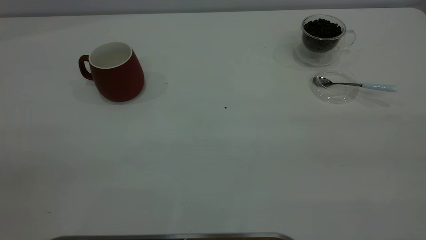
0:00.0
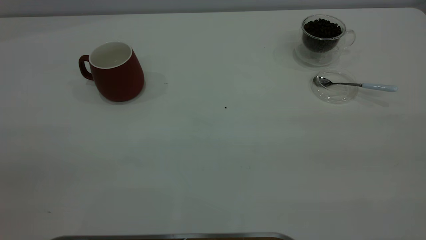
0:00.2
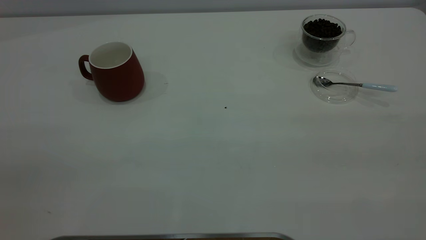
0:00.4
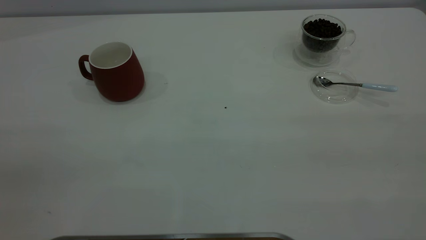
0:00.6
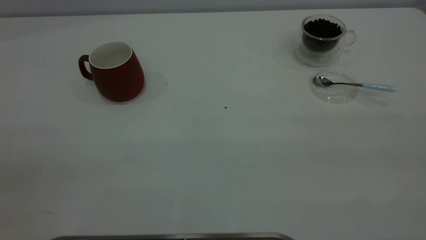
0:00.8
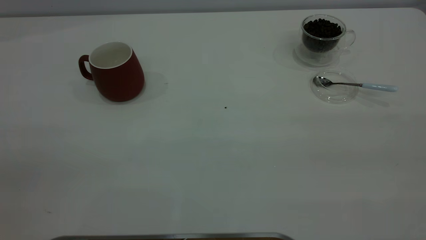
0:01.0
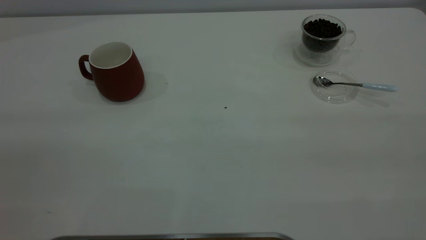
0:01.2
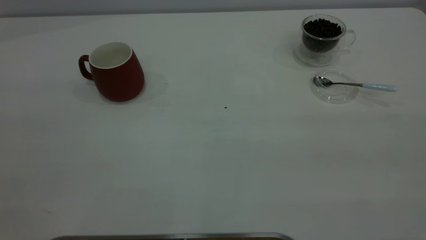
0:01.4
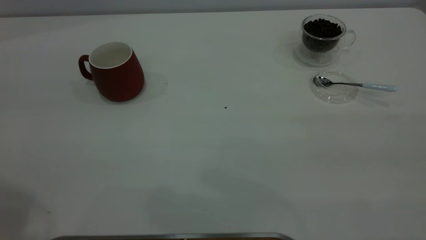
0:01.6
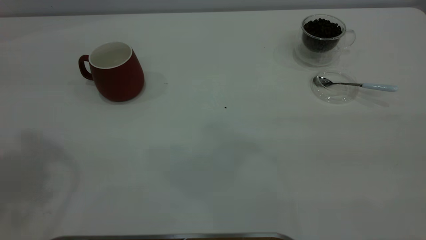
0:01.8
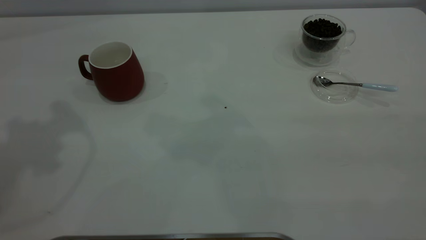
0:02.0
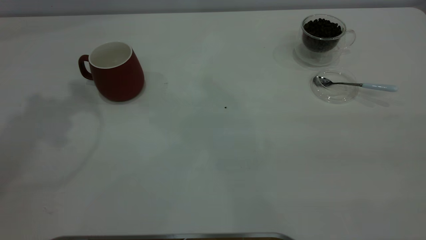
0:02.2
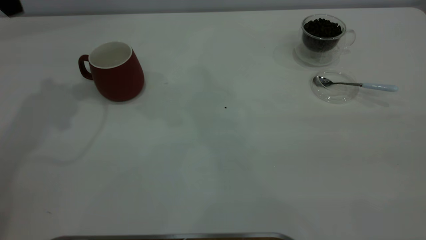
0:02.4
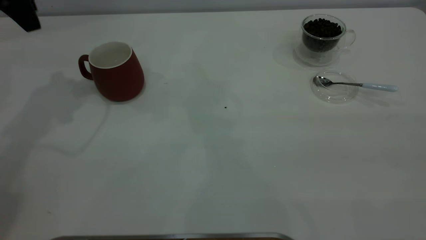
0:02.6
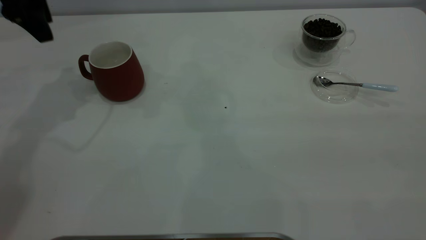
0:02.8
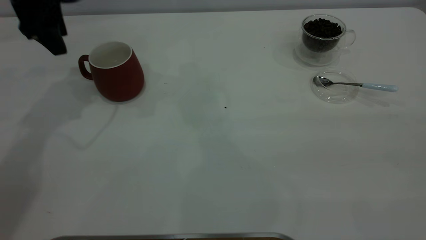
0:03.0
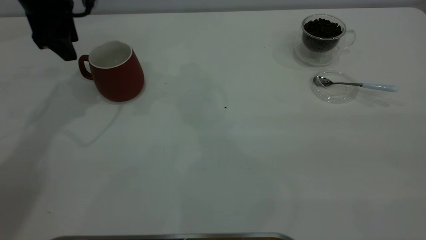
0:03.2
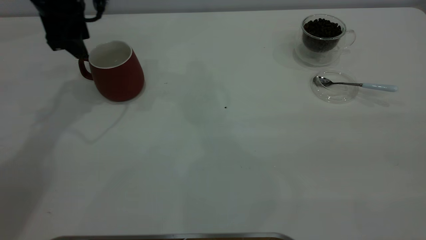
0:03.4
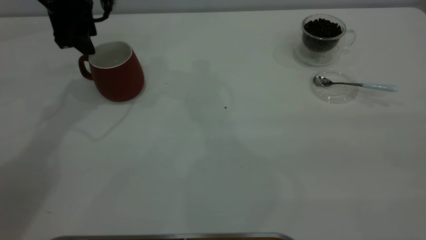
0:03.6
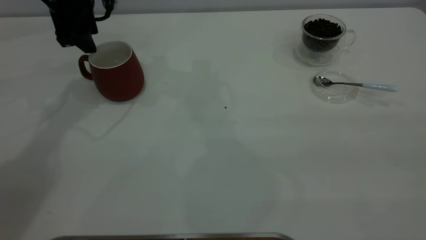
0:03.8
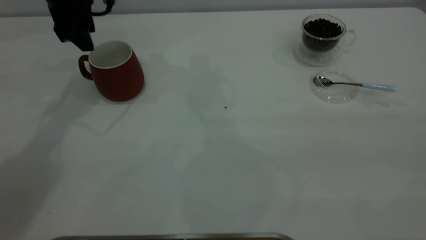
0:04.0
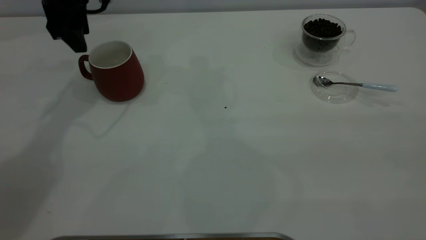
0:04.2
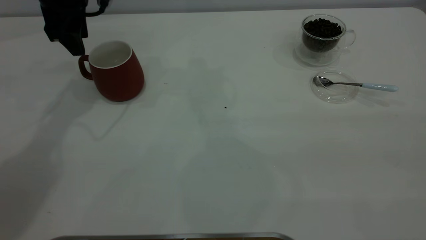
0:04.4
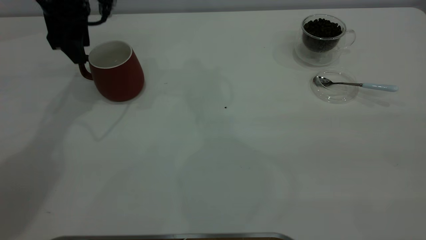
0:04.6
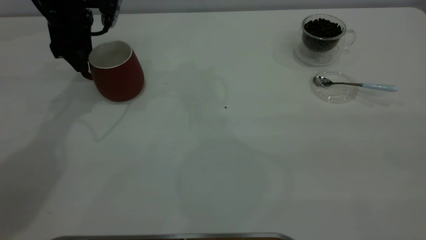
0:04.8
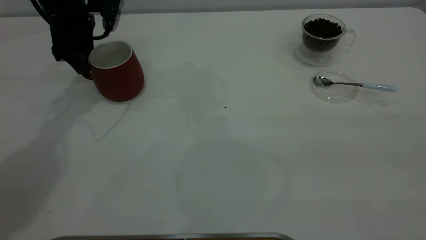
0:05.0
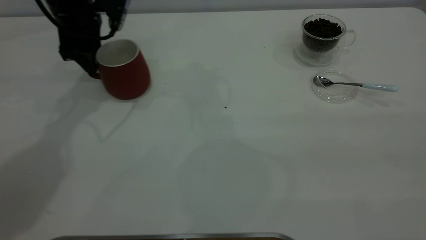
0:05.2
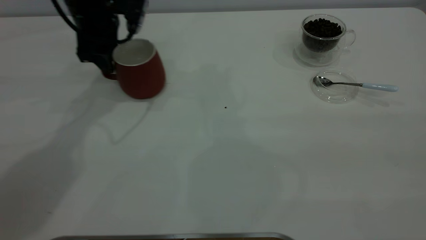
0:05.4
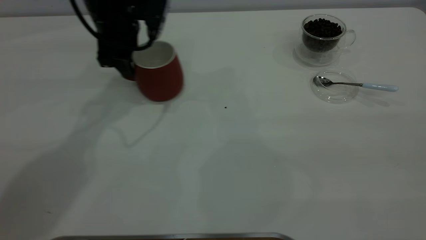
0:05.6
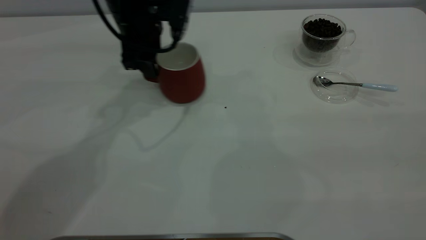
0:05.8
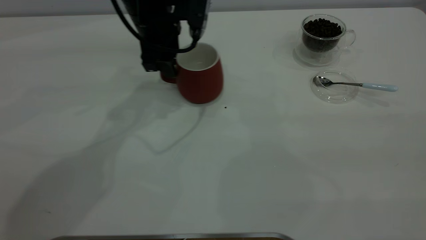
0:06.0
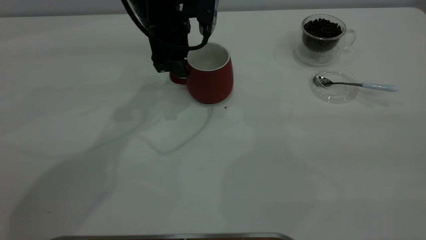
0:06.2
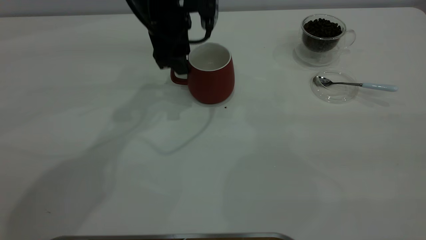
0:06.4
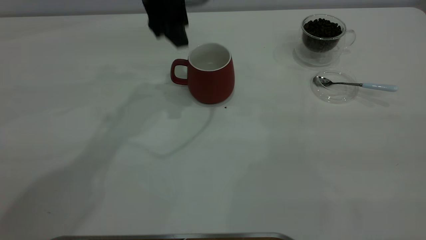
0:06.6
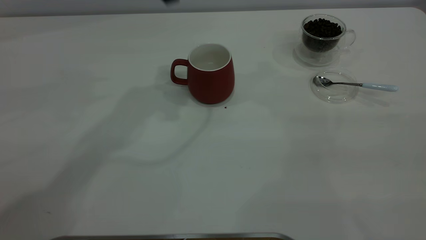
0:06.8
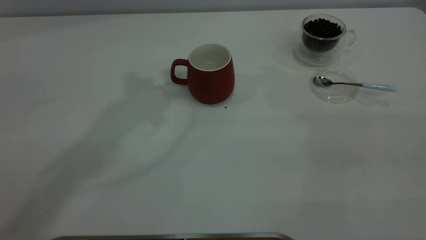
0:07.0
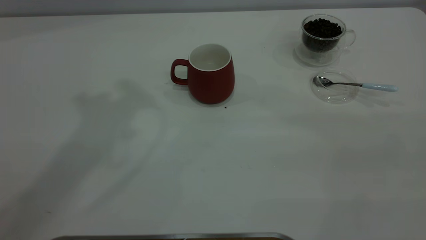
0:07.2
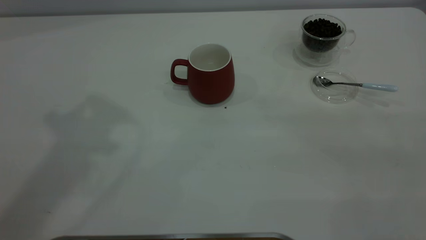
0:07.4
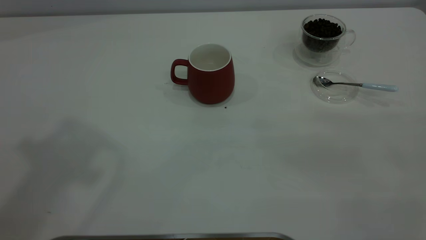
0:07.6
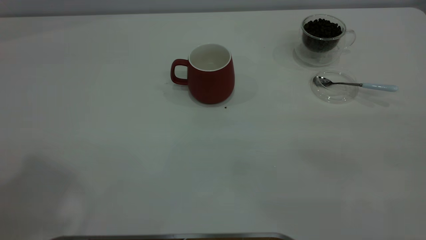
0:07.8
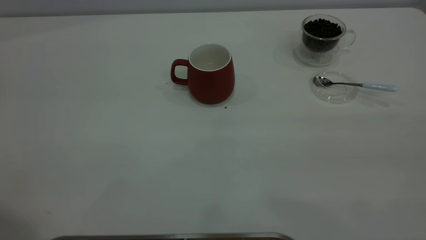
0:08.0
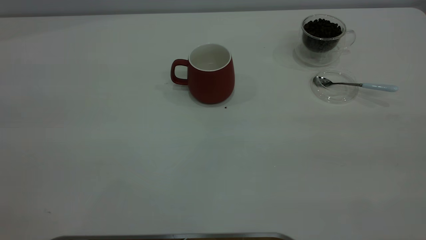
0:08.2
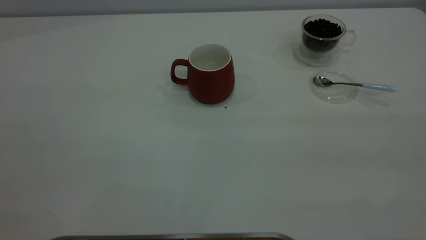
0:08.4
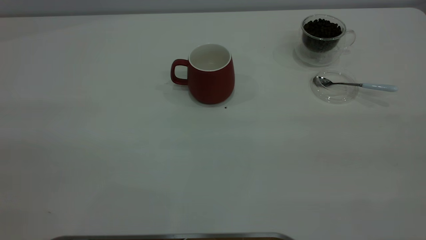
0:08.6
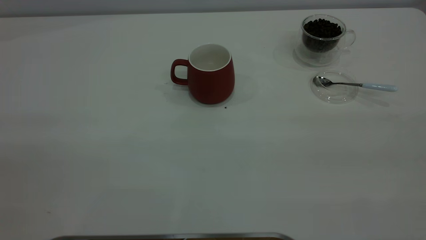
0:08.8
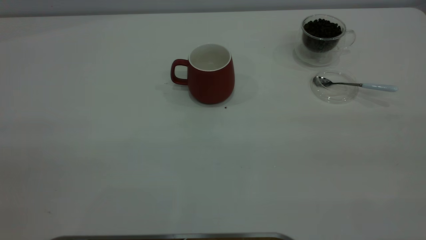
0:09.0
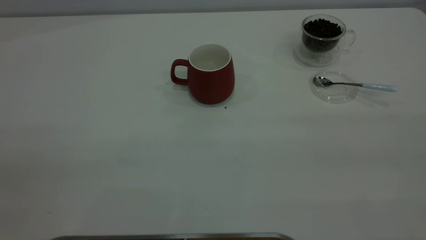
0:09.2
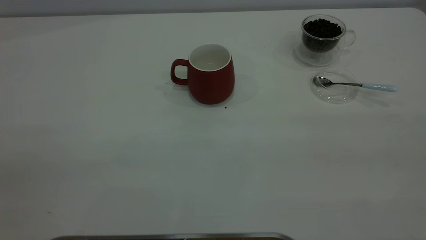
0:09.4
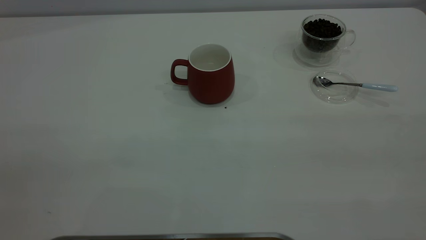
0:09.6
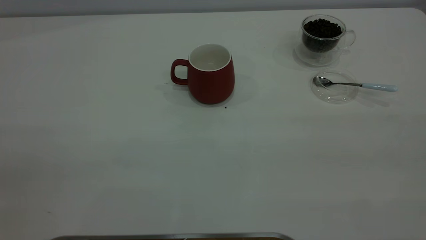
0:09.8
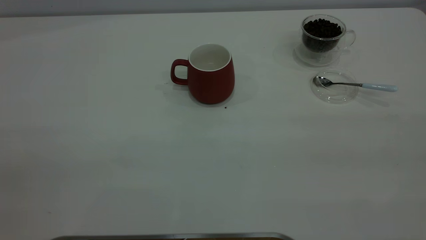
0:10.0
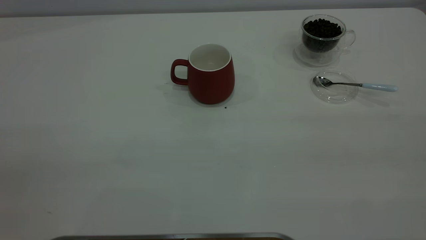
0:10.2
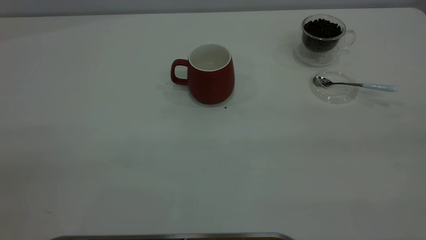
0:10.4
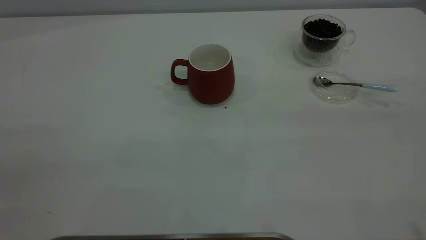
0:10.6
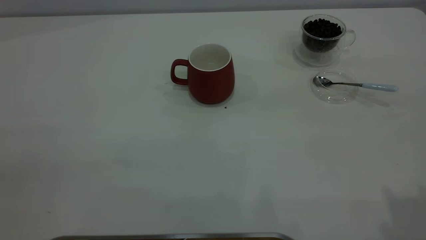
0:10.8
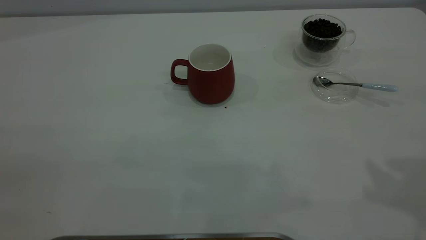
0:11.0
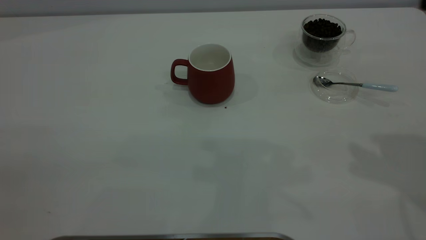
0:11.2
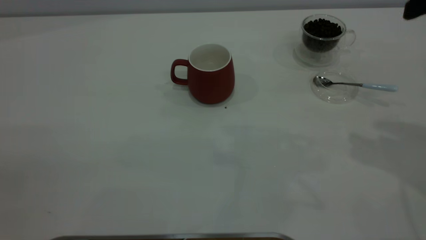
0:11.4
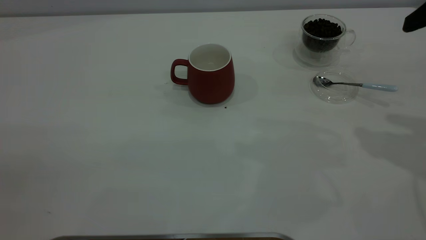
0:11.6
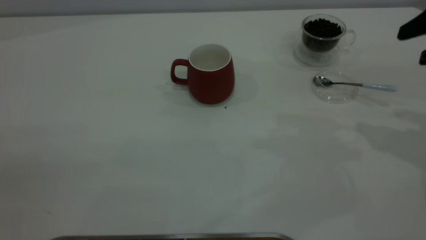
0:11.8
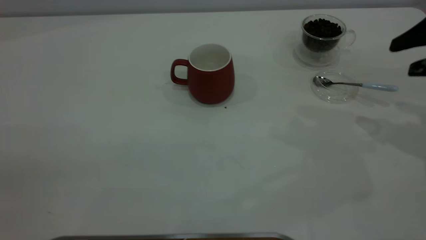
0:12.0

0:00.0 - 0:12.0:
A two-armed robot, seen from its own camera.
Task of the whole recording: the left gripper place the red cup in the center of the table, the right gripper take the blue spoon from the cup lid and scoop out the coffee beans from the coffee cup and put them into the red cup, the right gripper put the spoon back into the cup lid.
Step, 0:00.0 - 0:06.4: Move the cup to the center of view.
0:01.6 - 0:03.0: The left gripper travels forward and downward by about 35 cm.
0:03.0 - 0:04.4: The grippers move only a little.
0:04.4 - 0:06.0: The left gripper is displaced to the right by some 15 cm.
0:06.0 - 0:07.6: The left gripper is displaced upward and backward by some 40 cm.
0:10.4 - 0:12.0: The right gripper is displaced forward and downward by roughly 35 cm.

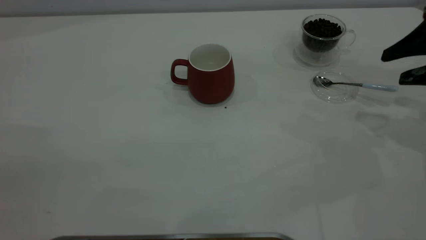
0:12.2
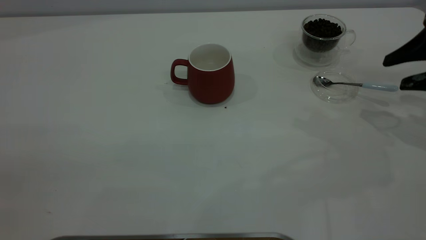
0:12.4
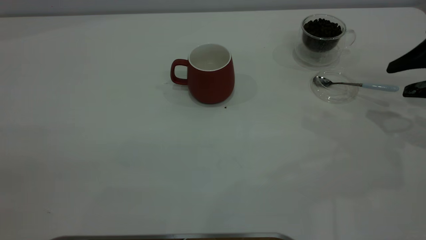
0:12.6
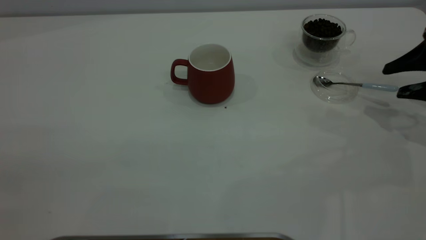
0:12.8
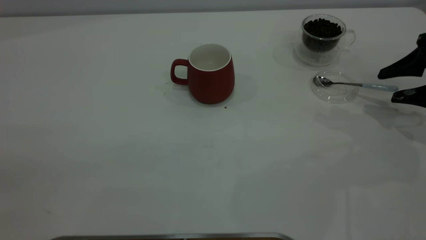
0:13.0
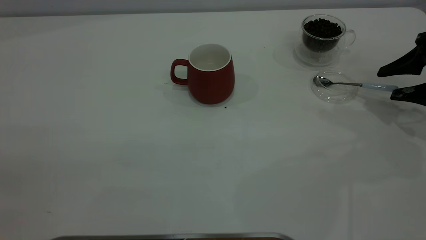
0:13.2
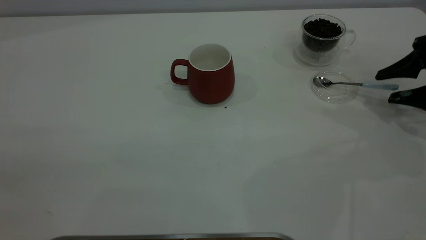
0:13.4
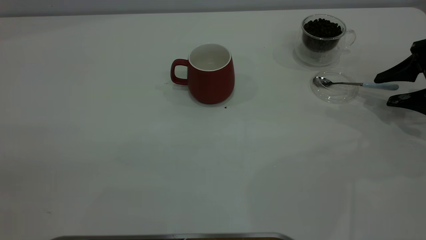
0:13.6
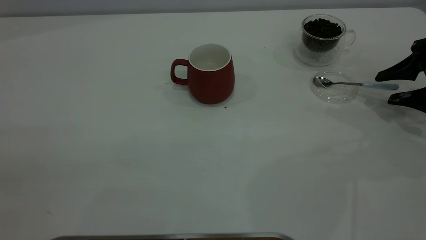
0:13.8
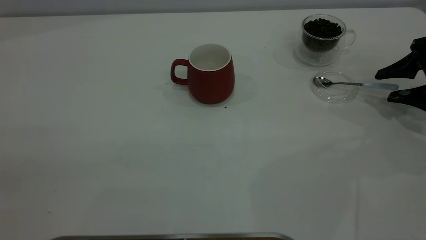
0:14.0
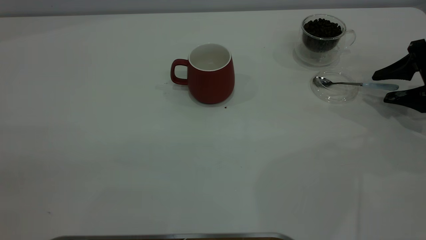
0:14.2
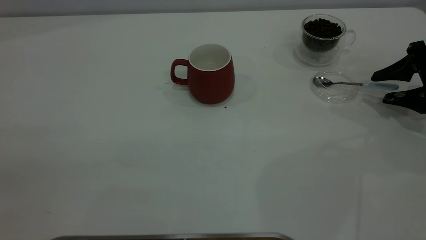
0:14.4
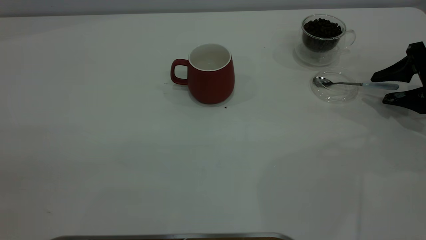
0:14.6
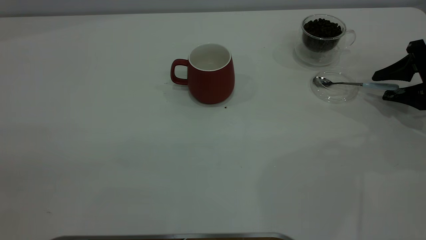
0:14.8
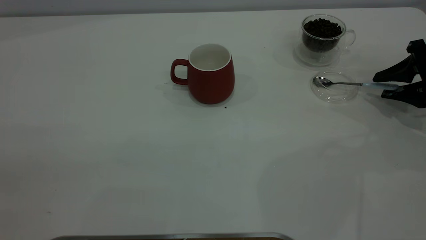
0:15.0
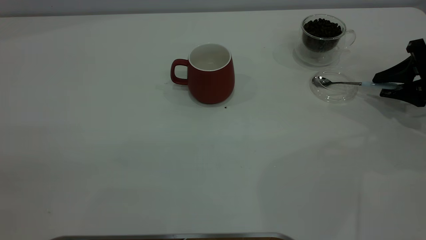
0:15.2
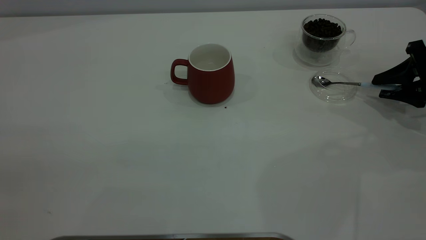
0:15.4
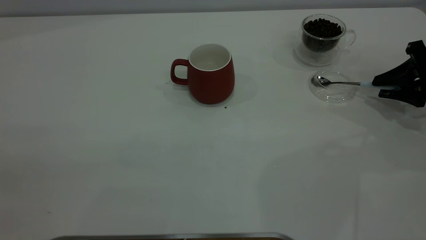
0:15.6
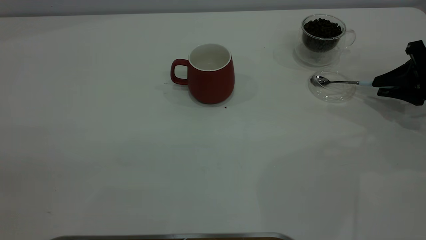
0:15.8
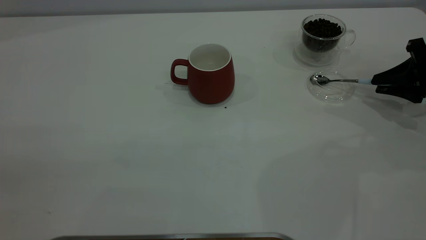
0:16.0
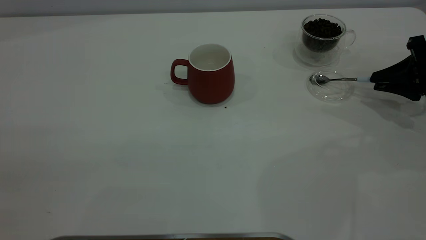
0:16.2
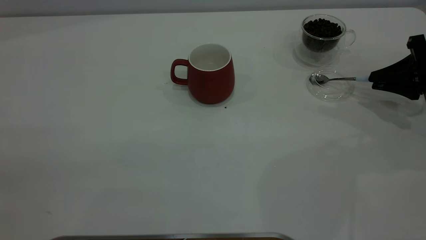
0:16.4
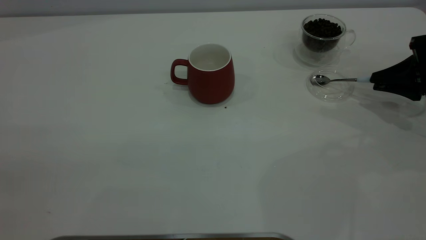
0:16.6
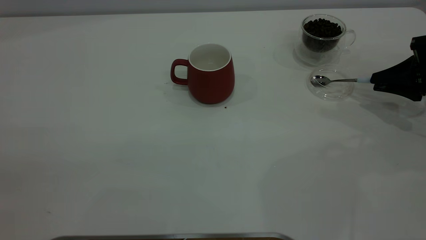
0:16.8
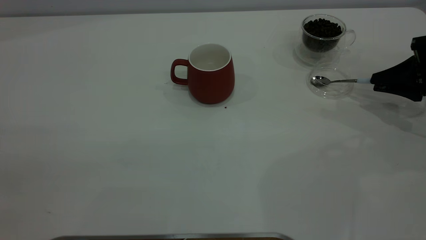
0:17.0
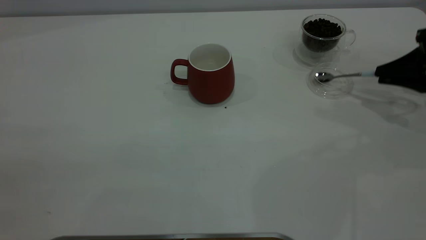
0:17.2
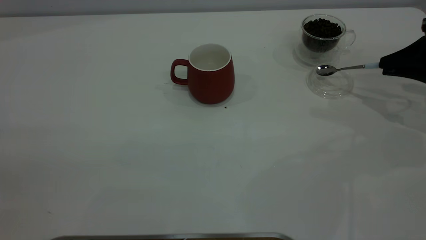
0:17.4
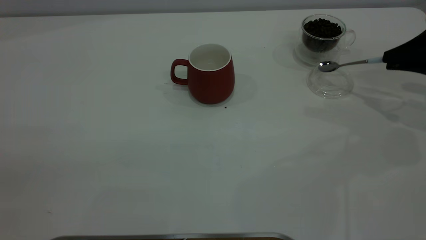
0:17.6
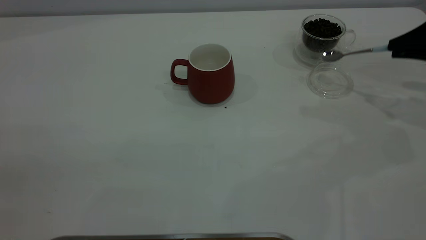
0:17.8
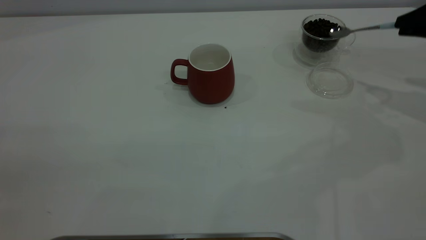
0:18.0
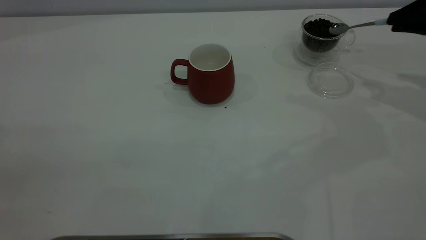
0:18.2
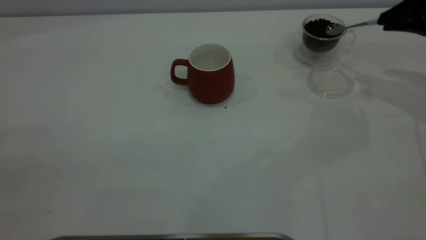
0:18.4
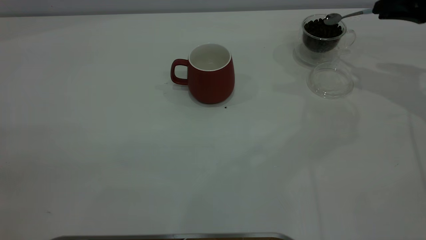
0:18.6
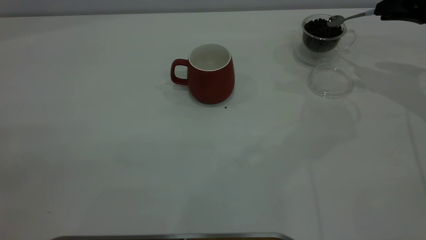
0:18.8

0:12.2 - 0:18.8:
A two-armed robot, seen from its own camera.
Task of the whole recording: the left gripper place the red cup in the center of the table, the right gripper take the blue spoon from the cup lid and scoop out the coffee beans from the coffee cup and put them into the red cup, the right gripper put the spoon back into the cup lid.
Step, 0:12.2 - 0:17.6: Pick up the spoon.
0:12.2 - 0:13.8: The right gripper travels downward by roughly 10 cm.
0:13.8 - 0:15.4: The right gripper closes up.
0:15.4 - 0:17.2: The right gripper closes its fingers.
0:17.2 - 0:18.8: The right gripper goes some 10 cm upward and forward.
